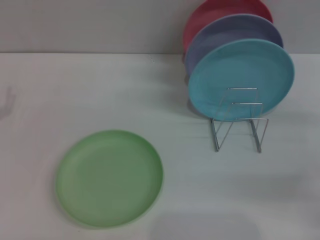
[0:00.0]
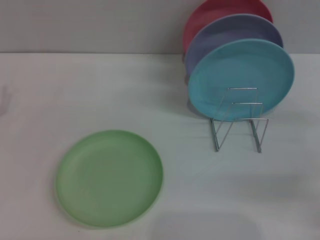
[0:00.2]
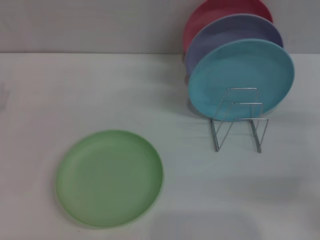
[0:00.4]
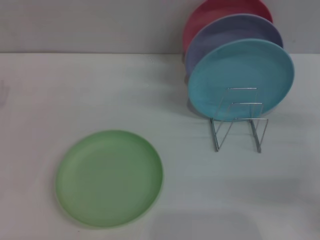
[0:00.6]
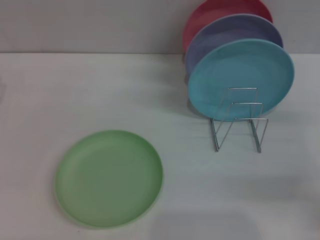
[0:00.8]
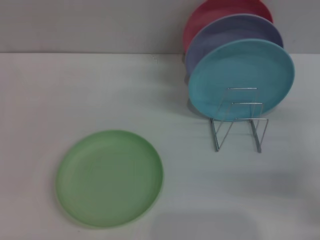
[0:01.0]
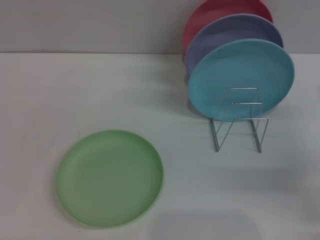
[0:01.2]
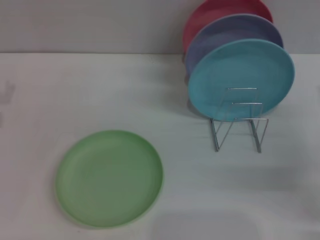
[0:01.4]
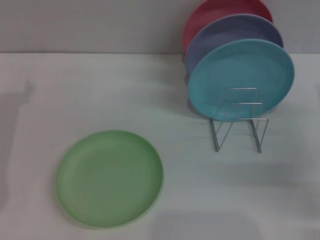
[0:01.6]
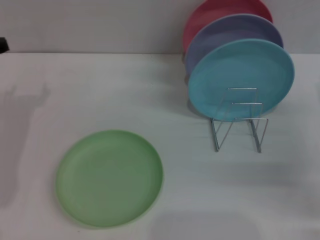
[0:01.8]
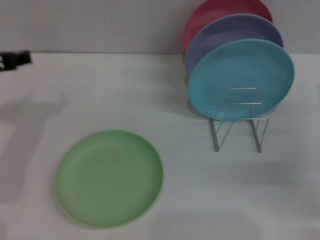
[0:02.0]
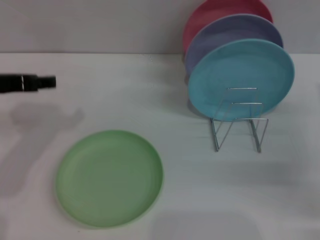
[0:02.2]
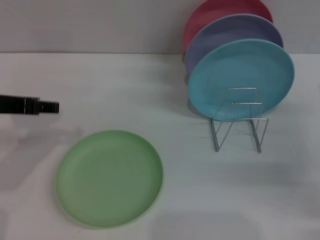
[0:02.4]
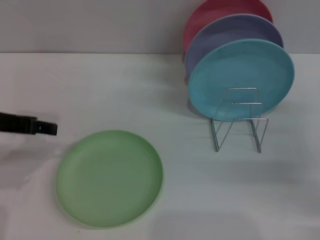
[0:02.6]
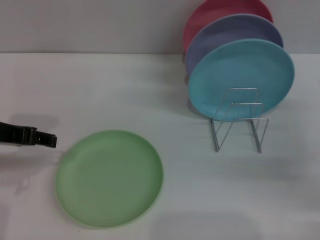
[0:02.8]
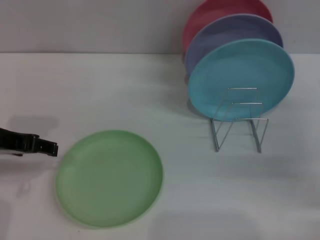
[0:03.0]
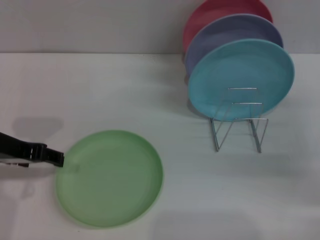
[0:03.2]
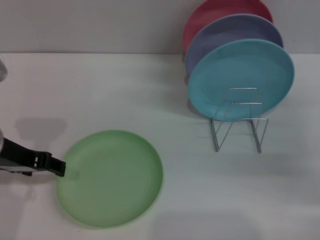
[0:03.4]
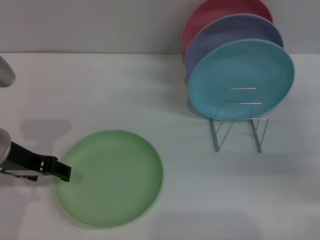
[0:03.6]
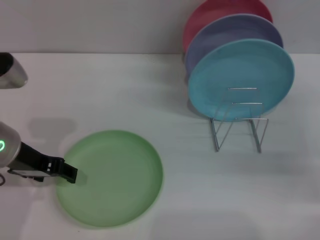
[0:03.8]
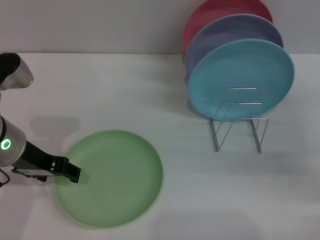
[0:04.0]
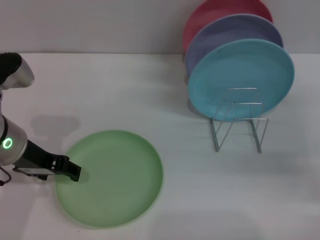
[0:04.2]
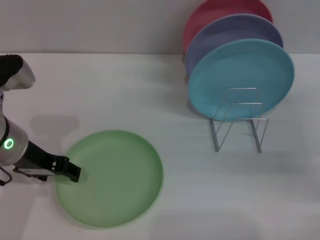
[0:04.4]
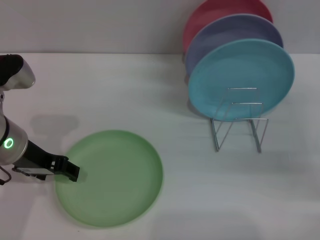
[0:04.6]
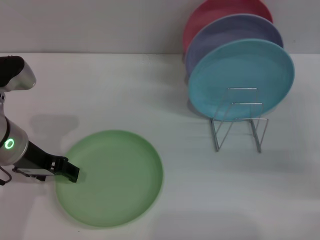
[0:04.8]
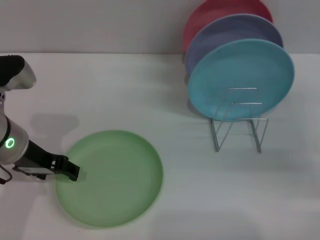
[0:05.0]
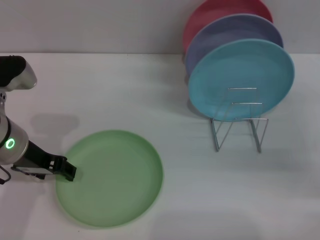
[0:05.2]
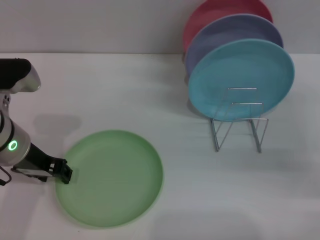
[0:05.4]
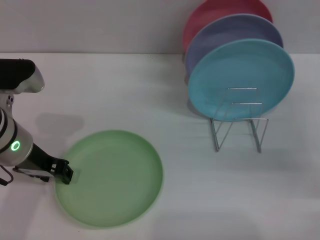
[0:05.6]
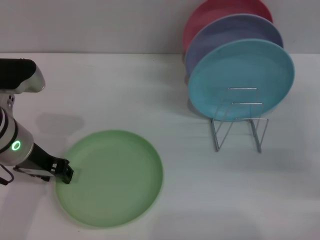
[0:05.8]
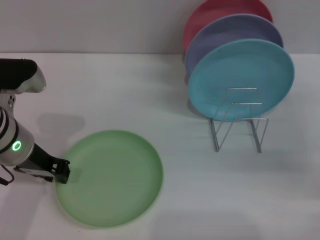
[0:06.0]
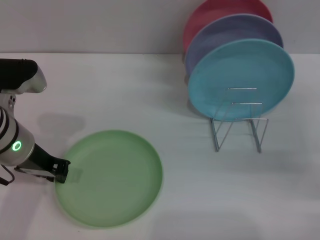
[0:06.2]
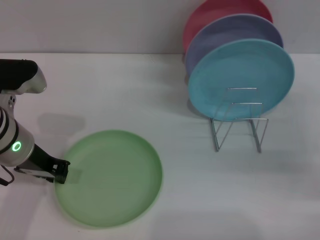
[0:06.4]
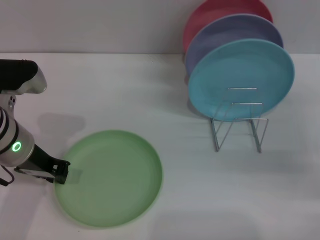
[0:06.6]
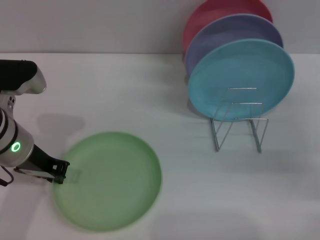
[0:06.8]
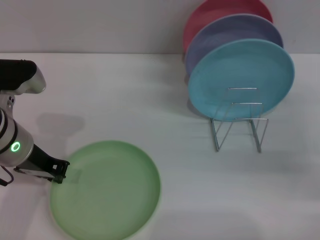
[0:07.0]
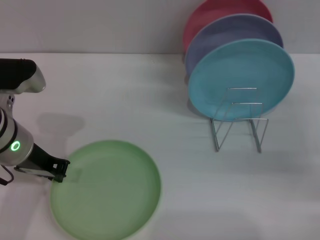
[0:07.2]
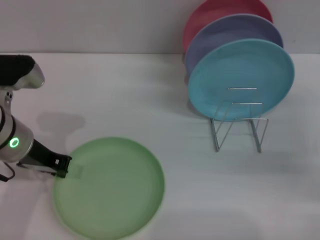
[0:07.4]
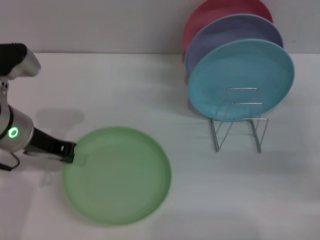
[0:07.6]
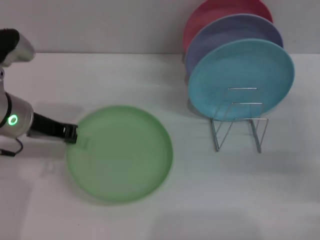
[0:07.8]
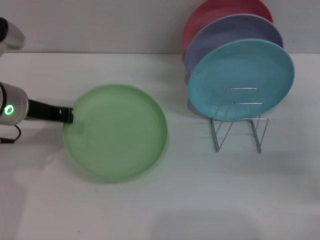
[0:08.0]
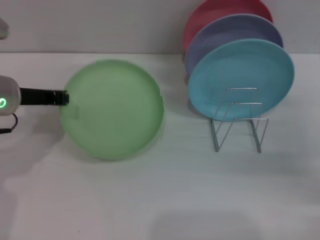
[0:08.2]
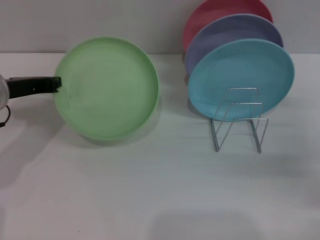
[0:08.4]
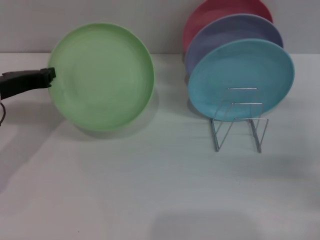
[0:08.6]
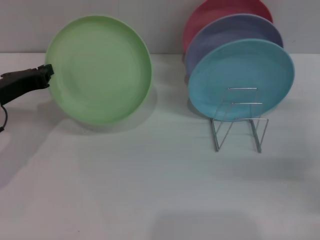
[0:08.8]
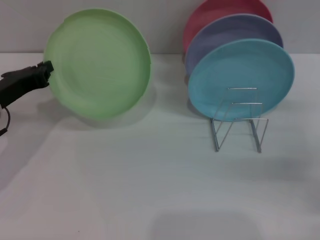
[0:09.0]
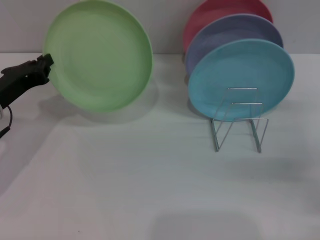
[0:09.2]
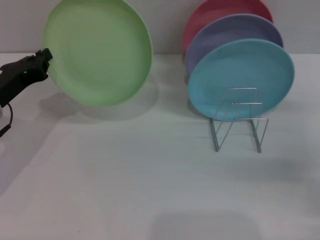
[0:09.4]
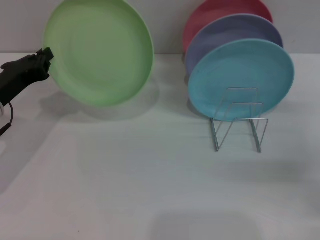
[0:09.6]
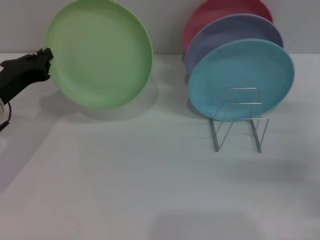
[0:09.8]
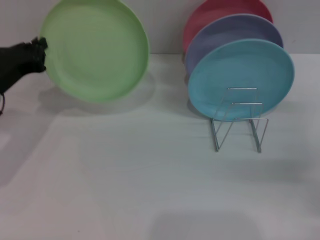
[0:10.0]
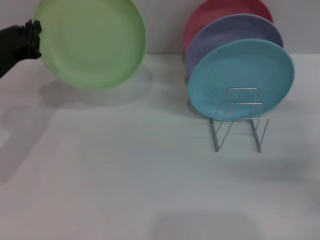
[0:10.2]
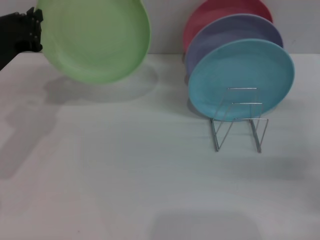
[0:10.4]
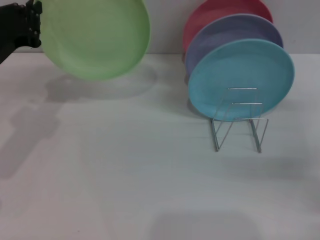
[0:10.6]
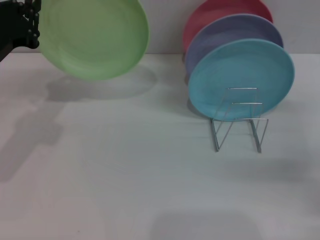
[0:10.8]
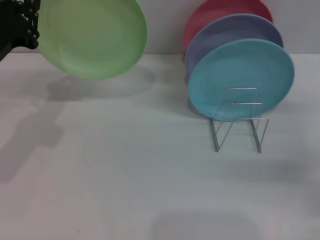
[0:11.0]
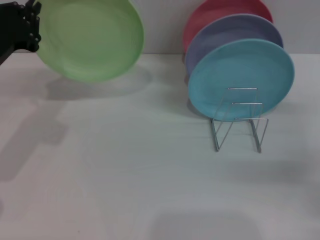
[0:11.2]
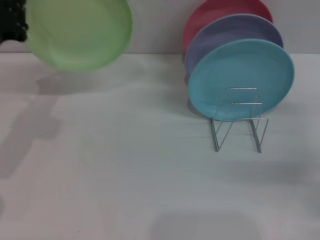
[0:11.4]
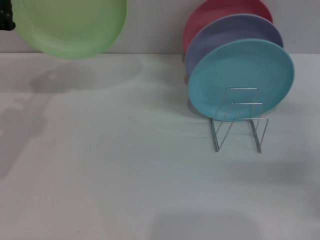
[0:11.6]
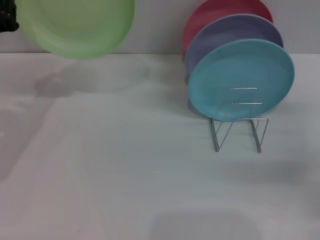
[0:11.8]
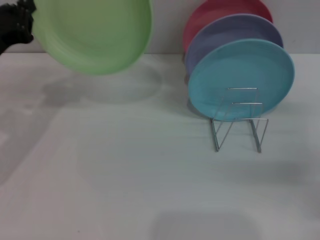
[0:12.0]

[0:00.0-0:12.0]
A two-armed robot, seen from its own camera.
Task of the whole recording: Grip the plate with one hand, pass it to the other, then set it on the shelf.
Step, 0:00.0 to 0:08.2: Pick up the plate with the left gripper.
0:01.6 to 0:03.0: The left gripper is displaced to the right by approximately 5 cm.
0:03.0 to 0:04.4: The left gripper ends up some 5 cm from where it was.
0:04.4 to 0:06.0: The grippers move only a little.
0:06.0 to 0:07.6: The left gripper closes up.
0:07.6 to 0:09.0: The left gripper travels to the left by about 5 cm.

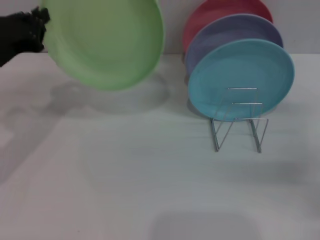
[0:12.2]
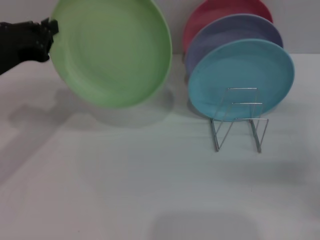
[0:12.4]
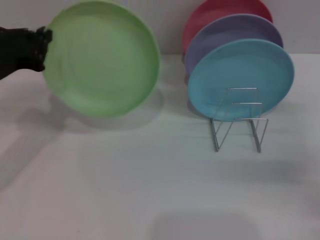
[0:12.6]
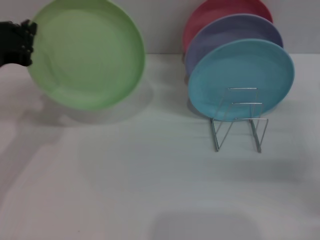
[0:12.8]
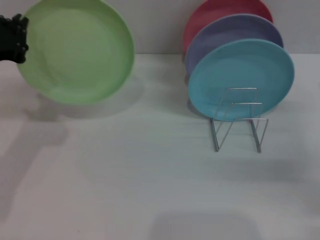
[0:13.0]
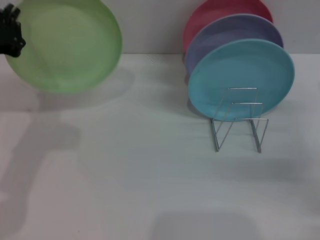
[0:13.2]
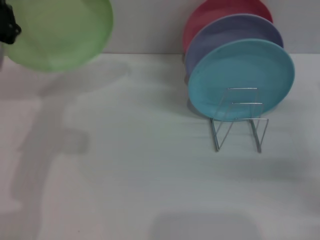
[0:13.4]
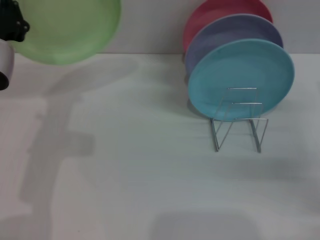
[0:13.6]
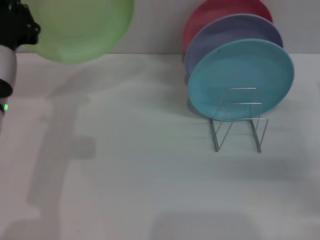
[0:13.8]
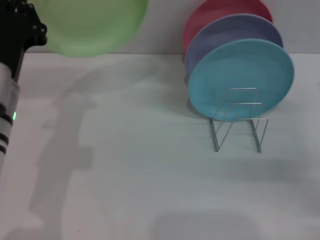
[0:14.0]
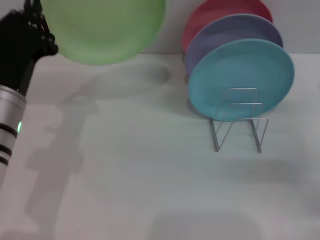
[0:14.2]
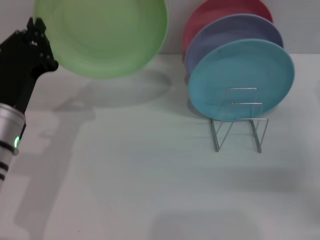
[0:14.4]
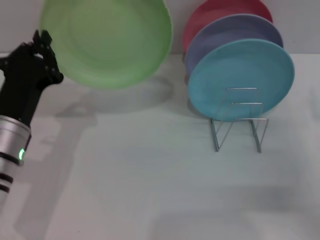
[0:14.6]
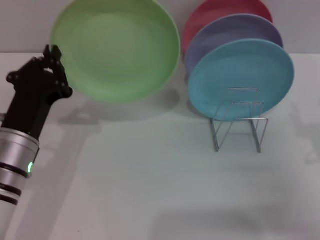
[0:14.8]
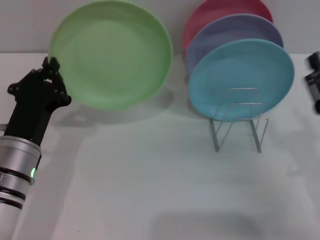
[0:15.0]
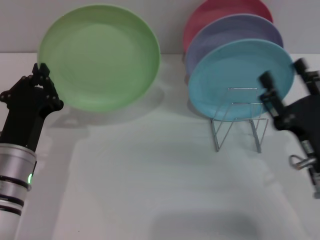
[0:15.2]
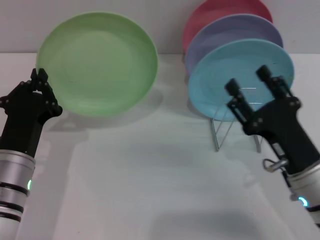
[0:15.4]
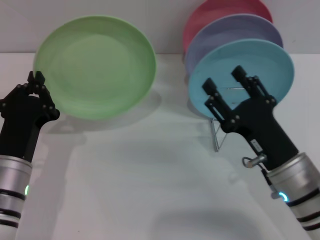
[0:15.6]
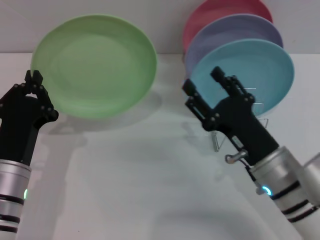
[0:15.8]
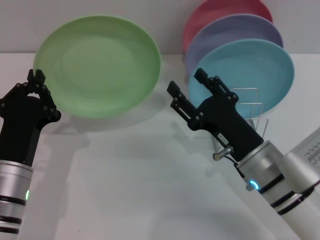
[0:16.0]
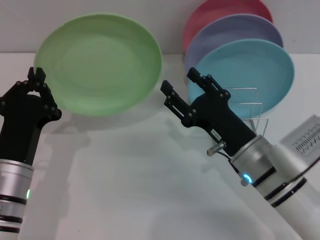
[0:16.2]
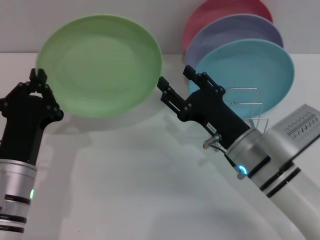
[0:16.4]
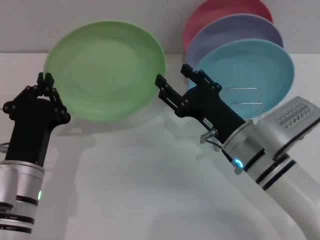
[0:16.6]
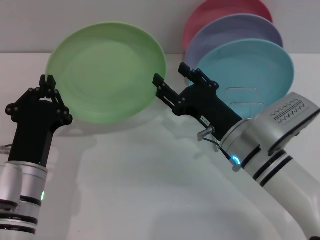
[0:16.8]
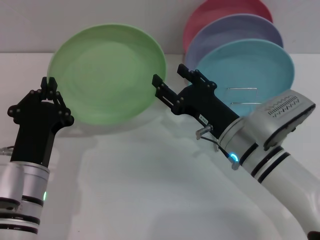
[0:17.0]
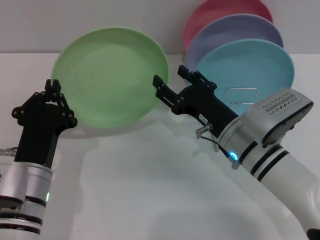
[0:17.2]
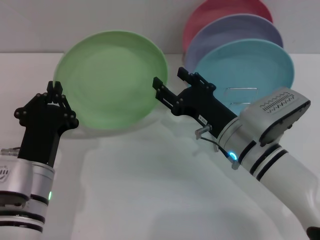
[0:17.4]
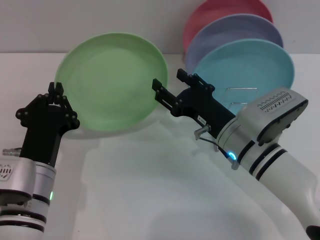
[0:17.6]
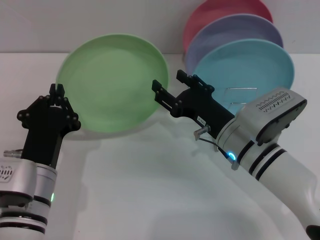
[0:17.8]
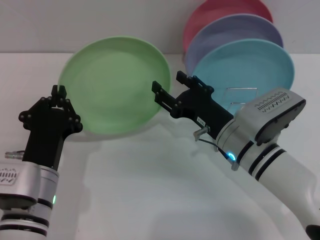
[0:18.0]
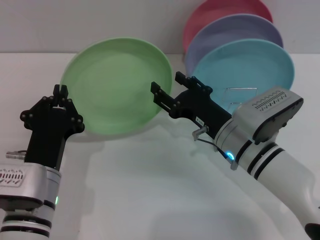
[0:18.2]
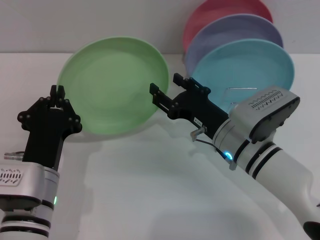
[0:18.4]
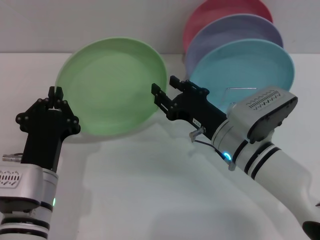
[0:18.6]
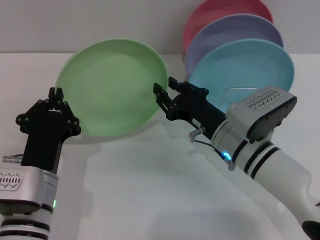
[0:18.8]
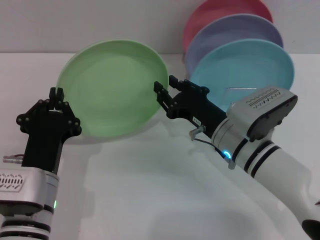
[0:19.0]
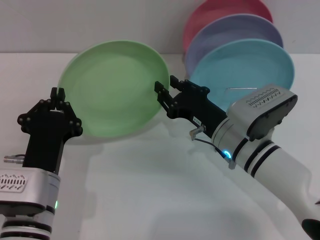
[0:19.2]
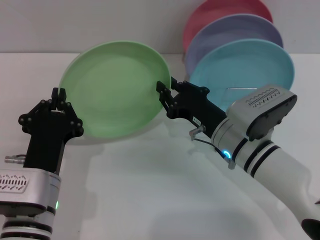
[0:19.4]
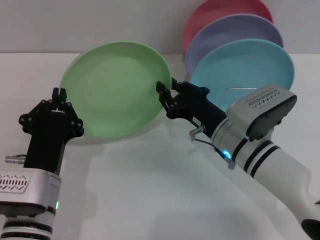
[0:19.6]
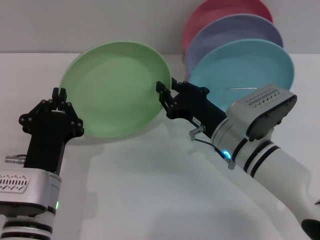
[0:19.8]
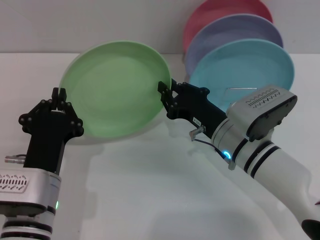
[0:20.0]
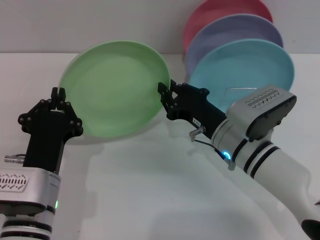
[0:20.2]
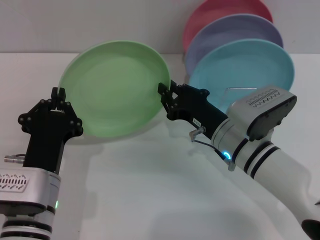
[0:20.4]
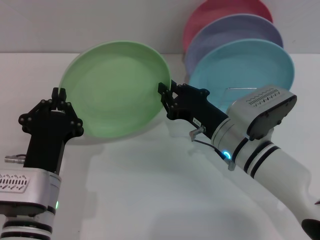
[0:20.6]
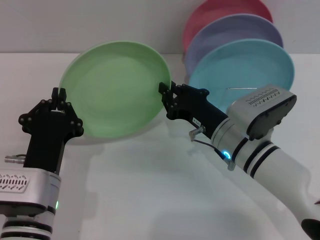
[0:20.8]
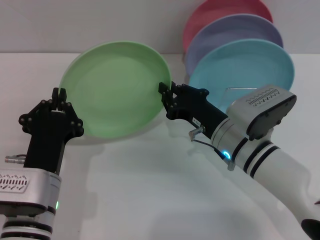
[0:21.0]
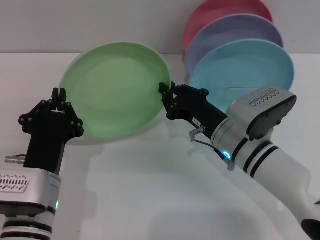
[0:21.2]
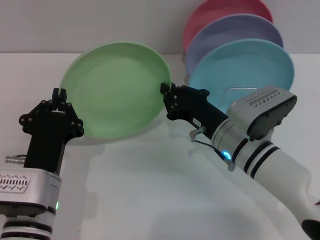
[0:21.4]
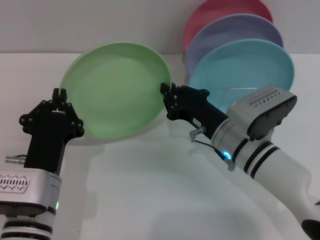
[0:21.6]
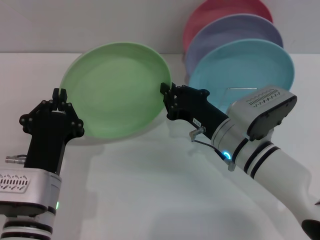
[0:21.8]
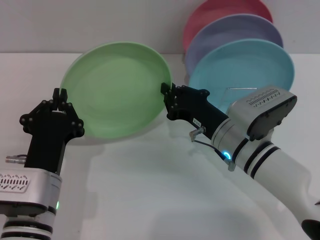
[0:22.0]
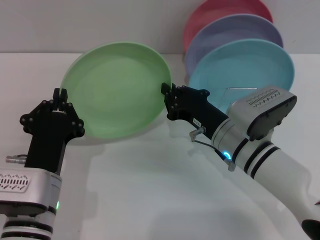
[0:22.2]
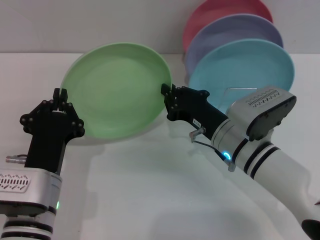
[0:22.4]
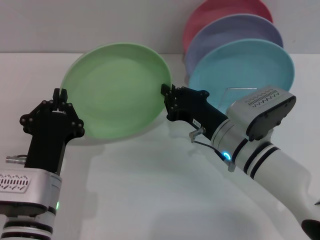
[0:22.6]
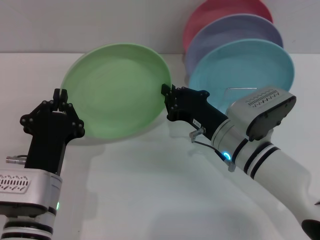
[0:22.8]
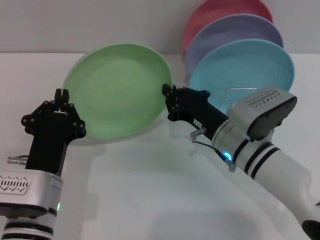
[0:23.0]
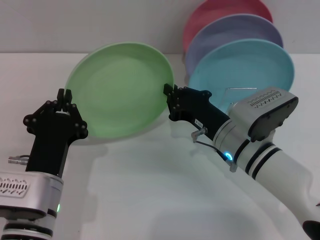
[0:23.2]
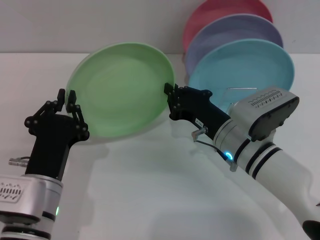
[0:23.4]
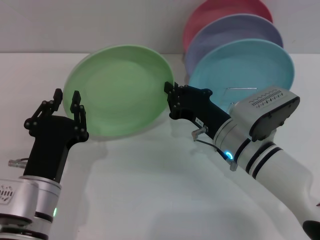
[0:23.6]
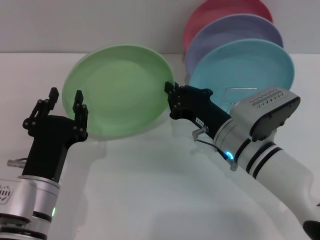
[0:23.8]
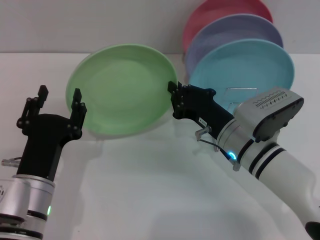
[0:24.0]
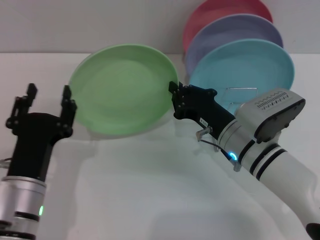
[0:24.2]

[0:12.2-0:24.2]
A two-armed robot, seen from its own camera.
Task of the whole recording: Grip the plate with one hand, pass it to the other, then set it on the shelf.
Step, 0:12.2 to 0:23.8: Pass the plate from the left gripper to the right gripper.
0:12.2 to 0:13.8: The left gripper moves to the right, about 5 cm.
0:13.8 to 0:15.2: The left gripper shifts some 10 cm downward, while the right gripper goes some 15 cm to the left and backward.
0:15.2 to 0:16.6: The right gripper is displaced to the left and forward by approximately 10 cm.
0:18.2 to 0:19.8: The right gripper closes up.
0:19.8 to 0:22.6: The two grippers keep their place.
0:22.6 to 0:24.2: The left gripper opens.
